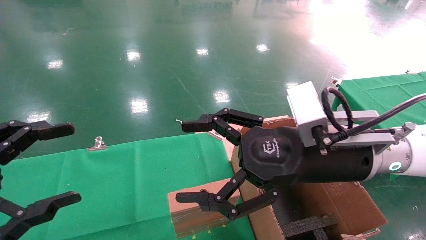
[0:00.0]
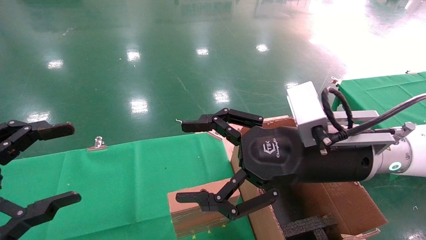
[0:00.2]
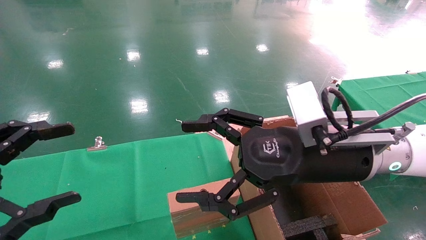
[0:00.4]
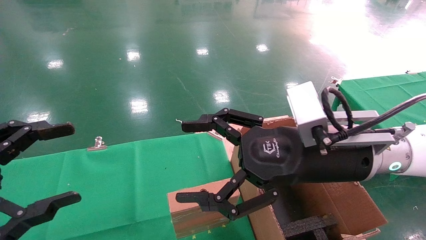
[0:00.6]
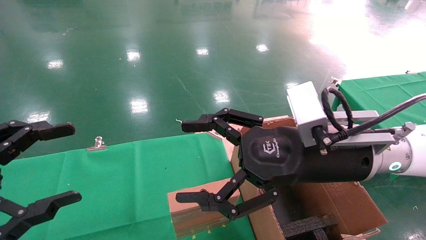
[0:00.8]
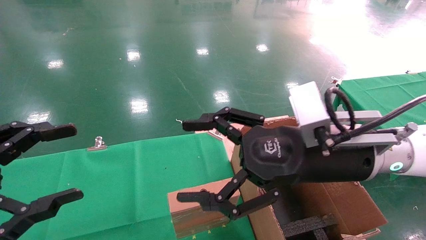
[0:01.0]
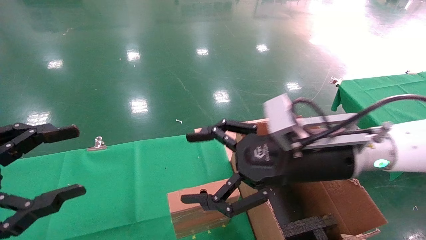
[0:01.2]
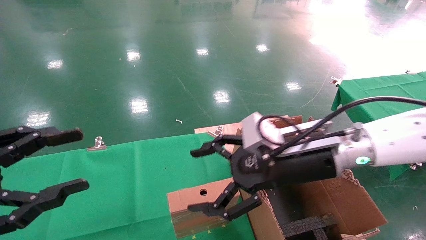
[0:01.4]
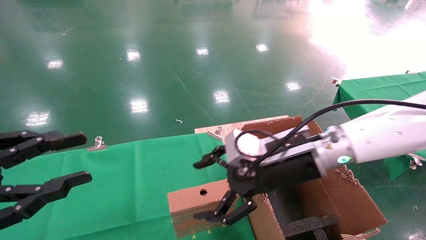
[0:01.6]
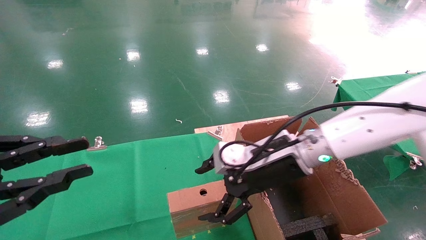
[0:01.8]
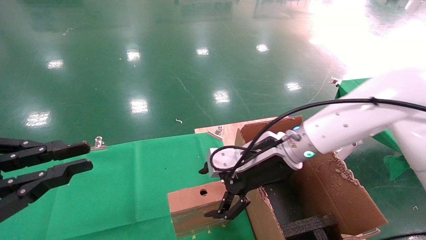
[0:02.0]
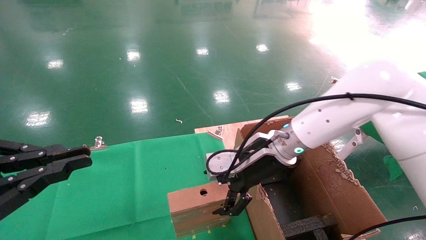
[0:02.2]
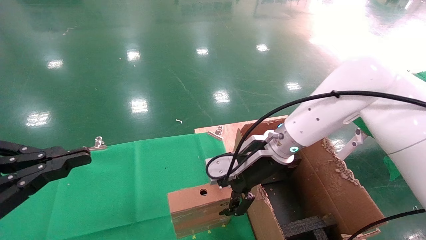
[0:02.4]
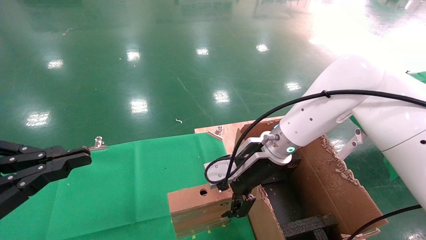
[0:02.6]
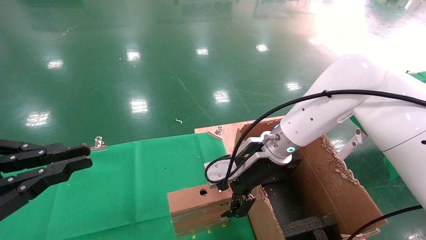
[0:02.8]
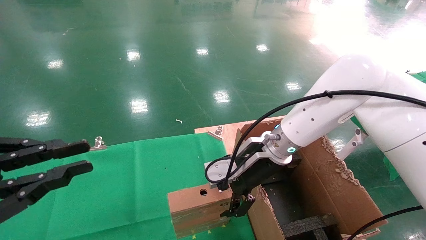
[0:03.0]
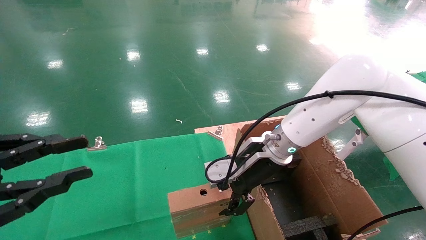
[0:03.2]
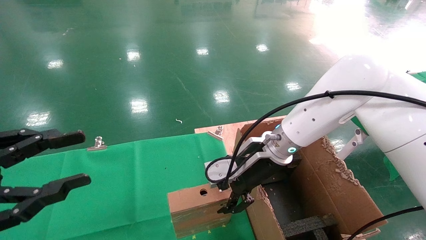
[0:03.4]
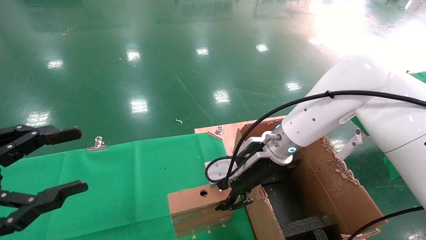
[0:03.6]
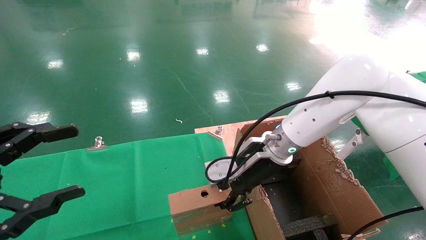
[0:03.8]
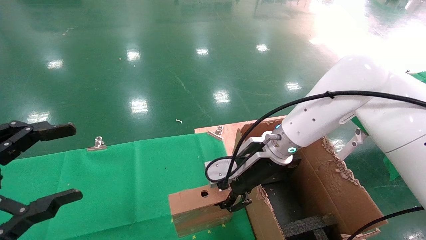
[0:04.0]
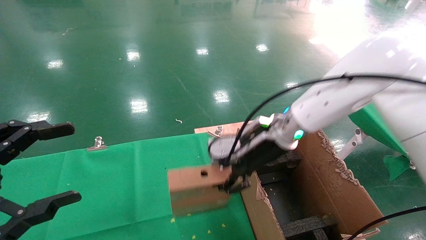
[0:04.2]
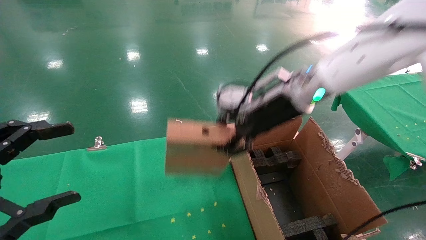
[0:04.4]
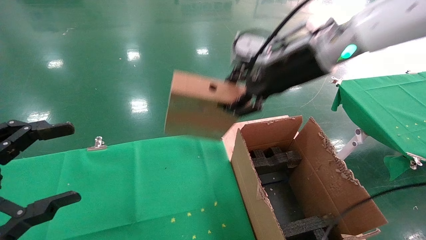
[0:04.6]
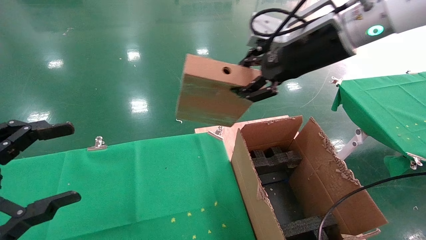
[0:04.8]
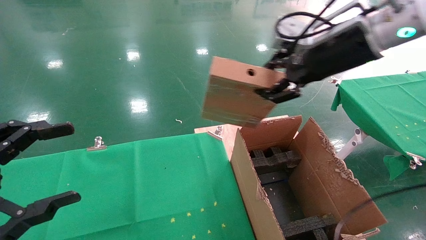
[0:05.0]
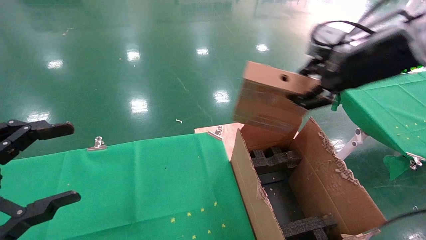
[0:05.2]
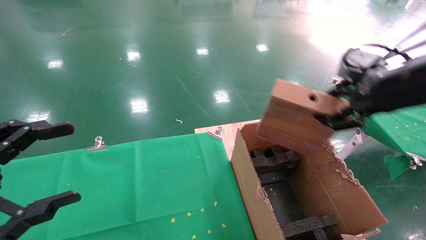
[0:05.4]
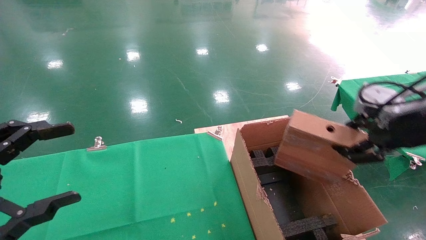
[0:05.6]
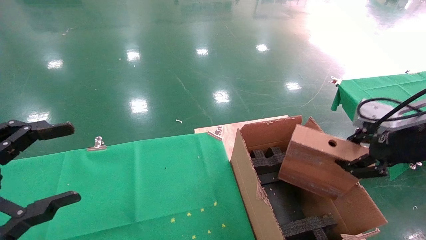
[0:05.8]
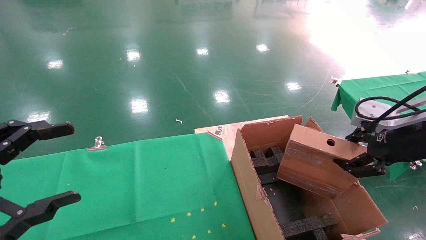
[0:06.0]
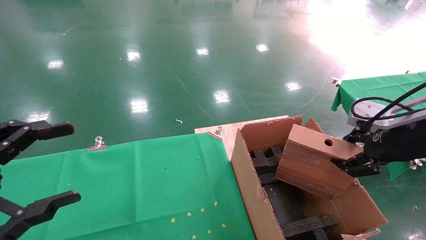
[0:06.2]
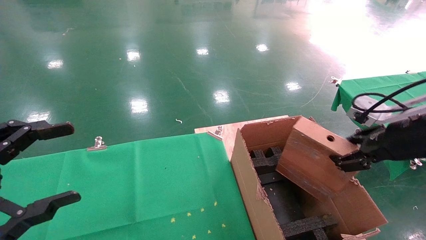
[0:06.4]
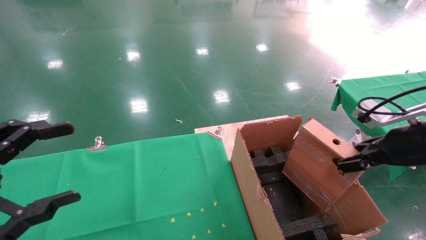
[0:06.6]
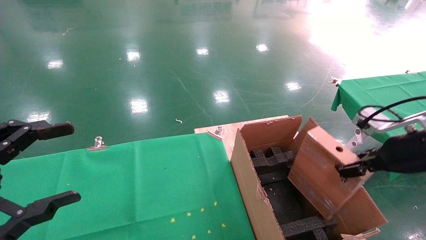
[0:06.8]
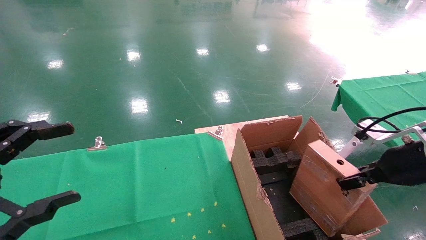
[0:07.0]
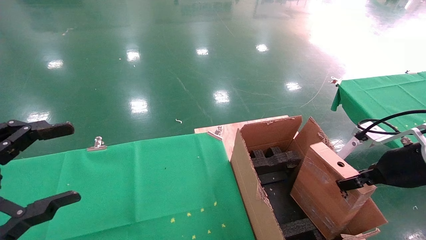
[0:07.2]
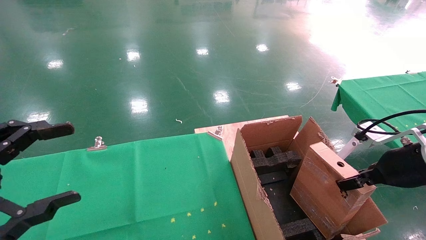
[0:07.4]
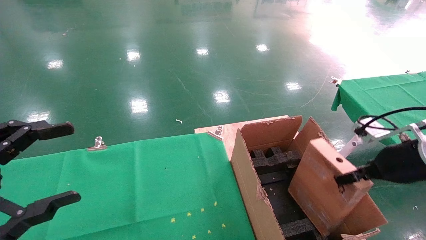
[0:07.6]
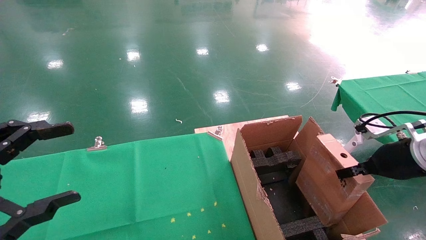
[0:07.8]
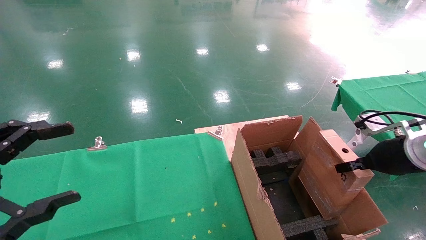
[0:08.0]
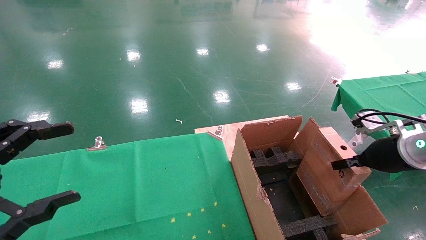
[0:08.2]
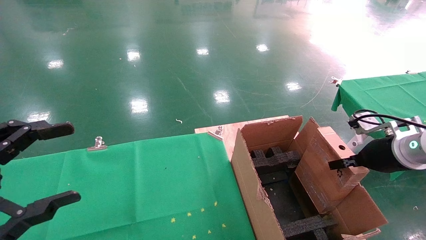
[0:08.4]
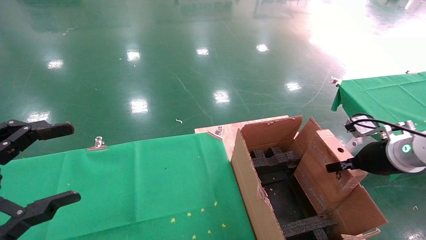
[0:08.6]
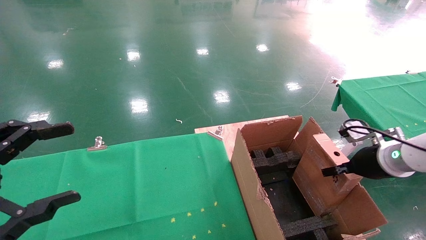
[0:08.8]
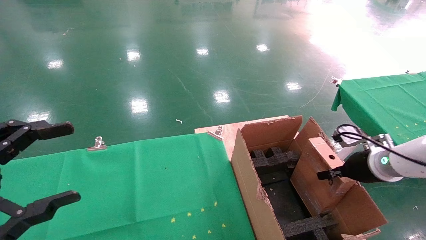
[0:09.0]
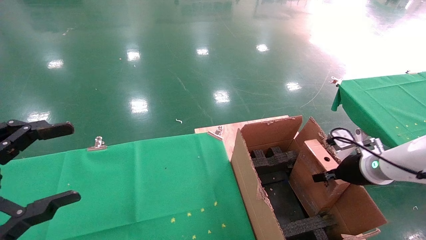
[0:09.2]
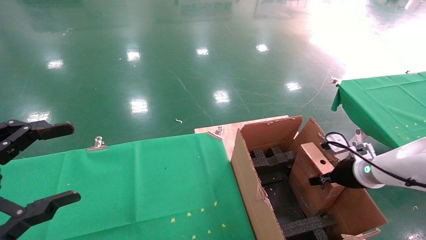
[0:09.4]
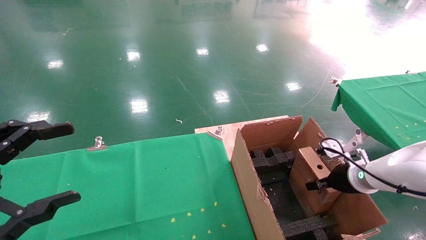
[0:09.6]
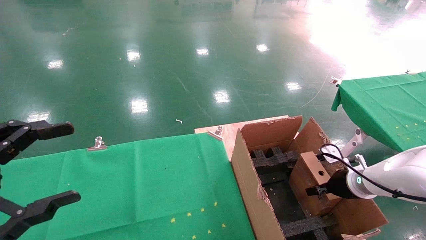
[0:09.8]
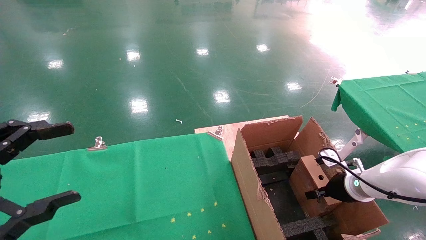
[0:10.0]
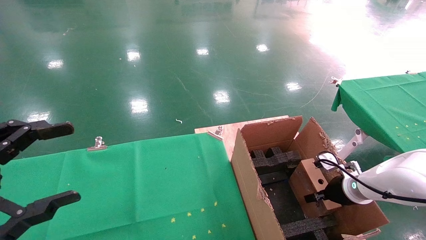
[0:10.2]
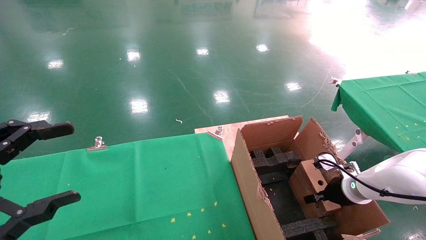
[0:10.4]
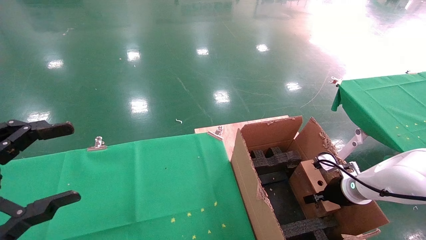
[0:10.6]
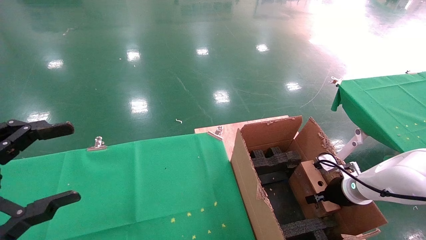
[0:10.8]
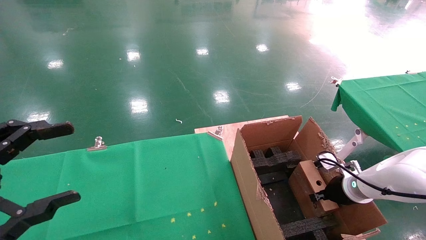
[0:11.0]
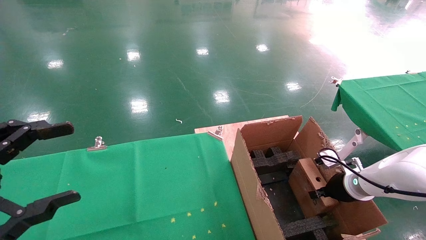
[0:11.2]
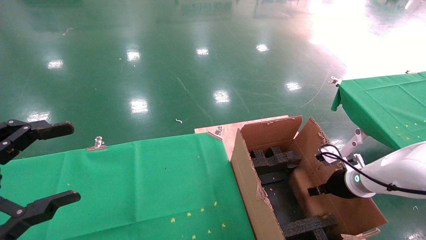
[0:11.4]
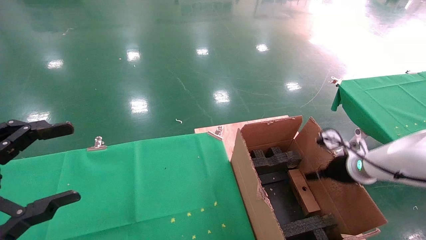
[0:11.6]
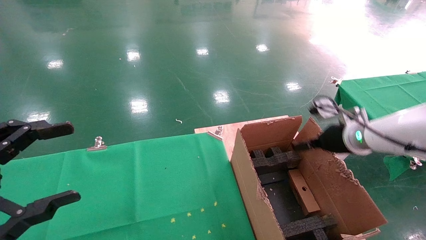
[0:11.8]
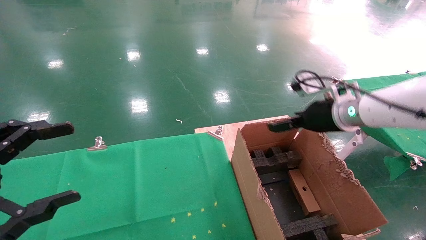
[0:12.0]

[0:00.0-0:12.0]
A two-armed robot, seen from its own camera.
Task of the whole recording: using a robotic arm to pick up a cardboard box and palace it the carton.
Step, 0:01.4 to 0:03.6: Pick up the mouse and the power cord paper box.
Step, 0:03.8 to 0:11.4: Place the mouse and the power cord paper box into the container.
0:00.0 to 0:01.6: The right gripper travels forward by approximately 5 cm, while the left gripper closes its fingers.
0:01.6 to 0:03.0: The left gripper closes its fingers, while the right gripper travels forward by some 5 cm.
0:03.0 to 0:04.4: The right gripper goes about 10 cm upward, and closes, while the left gripper opens its fingers.
0:04.4 to 0:06.0: The right gripper travels to the right and backward by about 25 cm.
0:06.0 to 0:07.6: The right gripper is displaced downward by about 10 cm.
0:07.6 to 0:09.0: The right gripper travels forward and downward by some 10 cm.
0:09.0 to 0:10.4: The right gripper heads downward, covering some 10 cm.
0:10.4 to 0:12.0: The right gripper travels upward and to the left by roughly 20 cm, and opens.

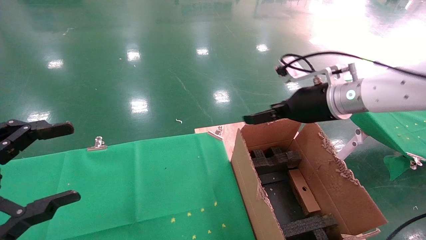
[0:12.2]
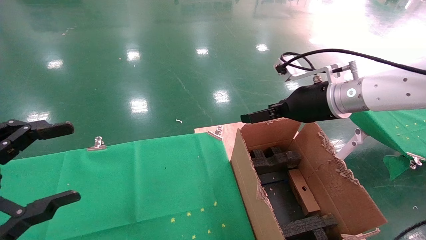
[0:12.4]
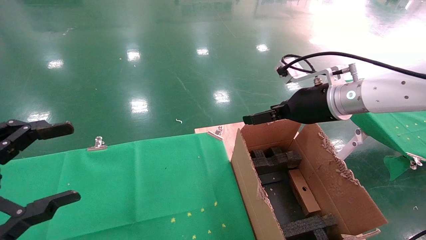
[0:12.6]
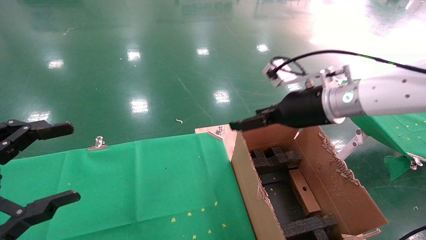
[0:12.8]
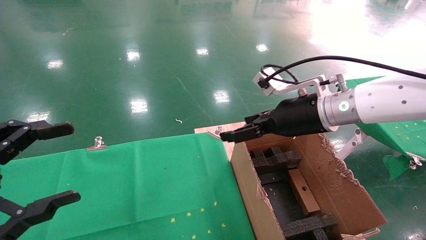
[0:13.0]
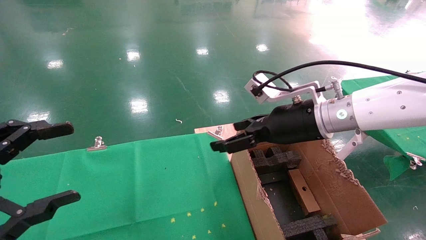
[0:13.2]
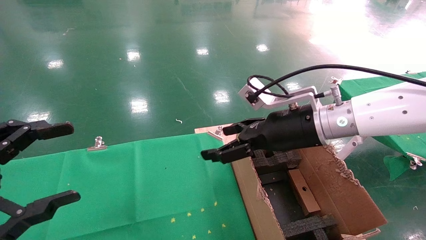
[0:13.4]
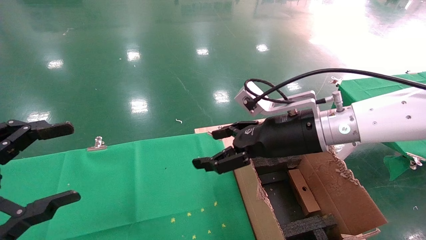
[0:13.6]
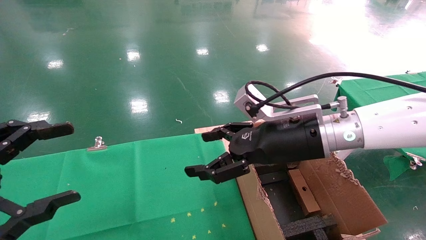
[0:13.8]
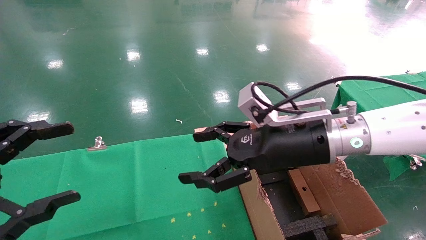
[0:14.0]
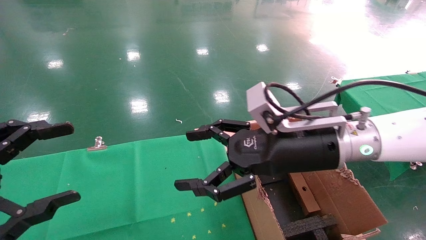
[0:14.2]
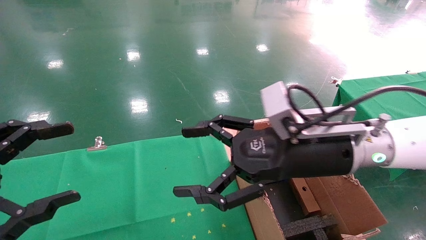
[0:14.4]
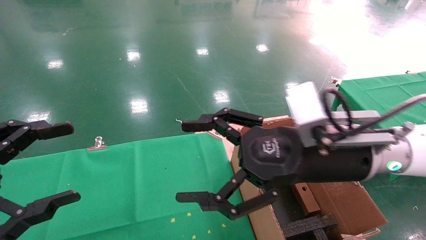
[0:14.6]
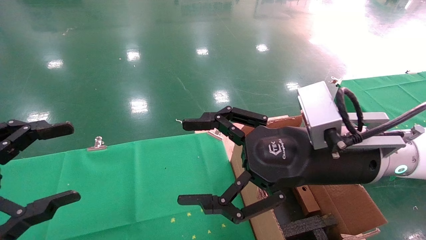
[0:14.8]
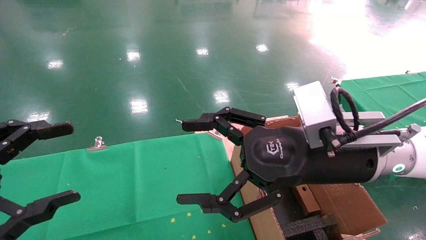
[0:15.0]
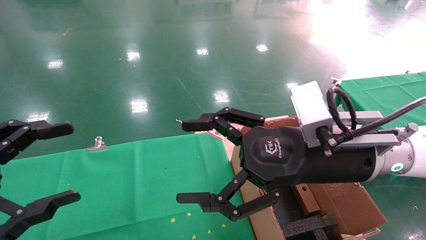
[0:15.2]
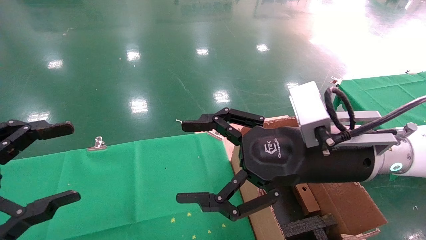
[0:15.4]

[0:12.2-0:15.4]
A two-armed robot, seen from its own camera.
Task of the whole recording: using a robotic arm to pick up a cardboard box and palace it the carton.
0:12.2 to 0:13.8: The right gripper heads to the left and backward, covering about 10 cm.
0:13.8 to 0:15.4: The right gripper goes some 5 cm backward.

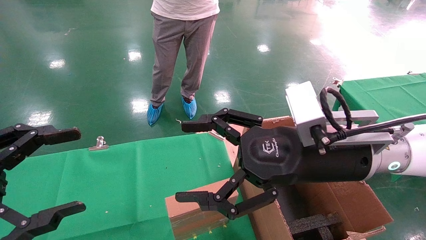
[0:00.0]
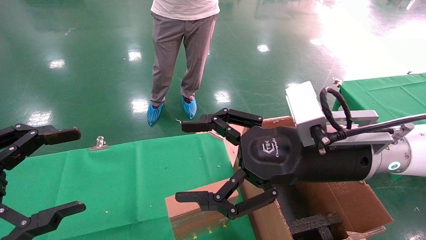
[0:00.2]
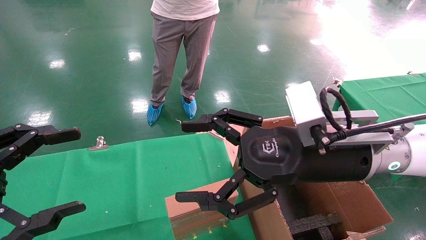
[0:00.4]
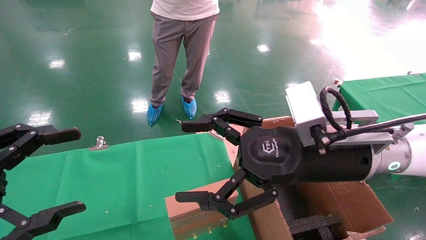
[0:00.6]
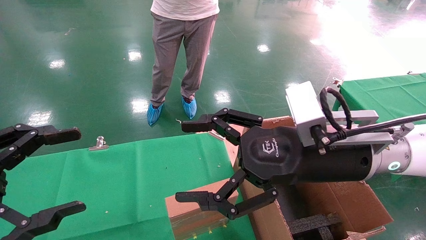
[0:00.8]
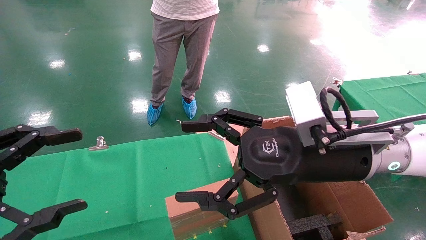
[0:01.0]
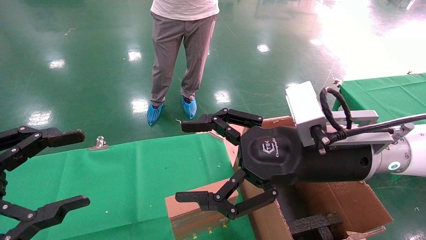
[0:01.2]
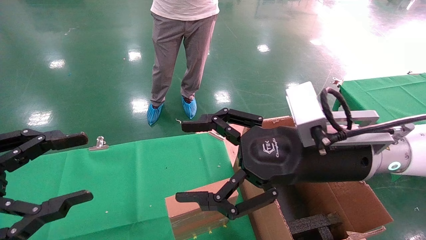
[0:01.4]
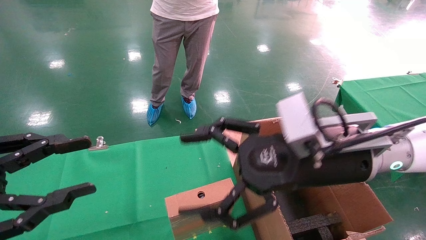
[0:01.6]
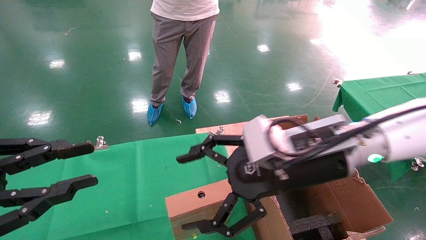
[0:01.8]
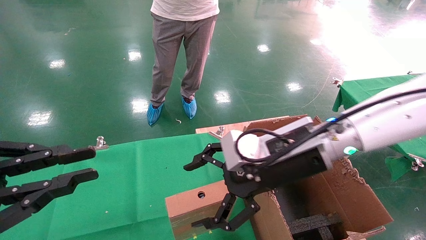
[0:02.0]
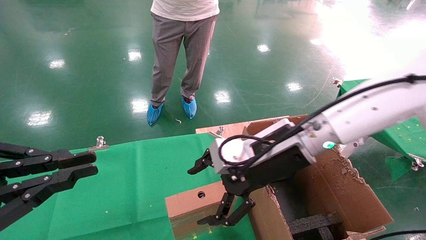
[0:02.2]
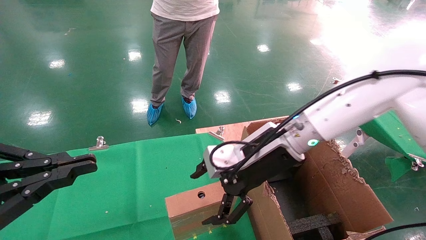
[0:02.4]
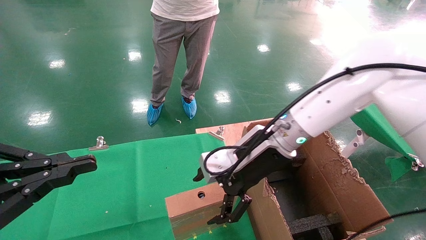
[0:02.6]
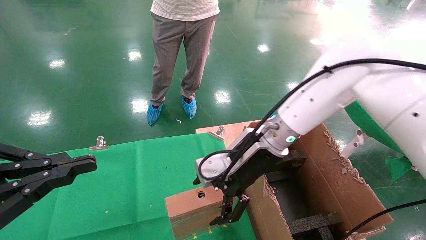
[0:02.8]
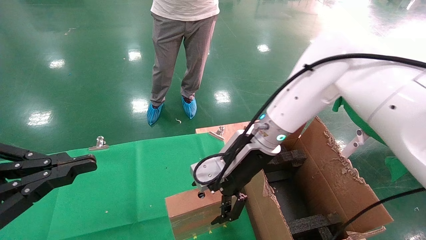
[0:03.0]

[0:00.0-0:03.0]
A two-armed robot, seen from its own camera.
Task of the whole recording: using a robotic arm to pick up a cardboard box and palace it the carton.
0:00.0 to 0:01.6: There are only small adjustments of the grippers.
0:01.6 to 0:03.0: The left gripper closes its fingers. Meanwhile the right gripper heads forward and to the left, covering approximately 15 cm.
